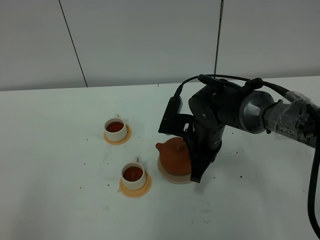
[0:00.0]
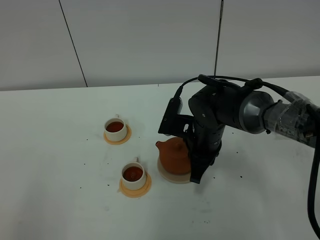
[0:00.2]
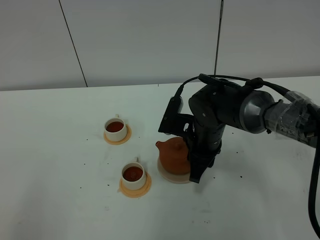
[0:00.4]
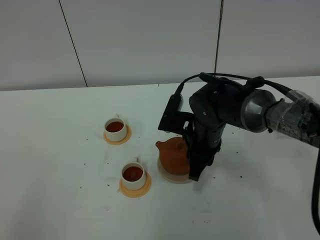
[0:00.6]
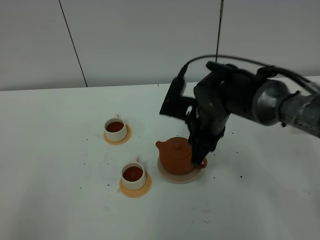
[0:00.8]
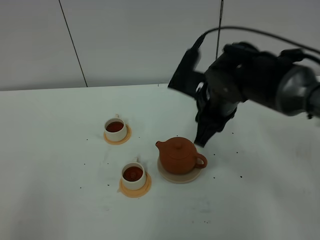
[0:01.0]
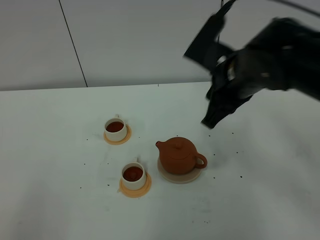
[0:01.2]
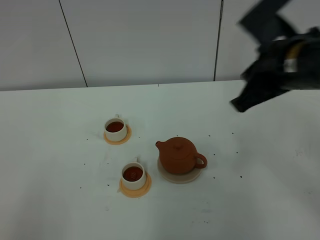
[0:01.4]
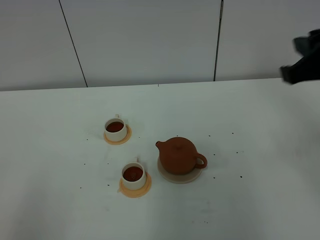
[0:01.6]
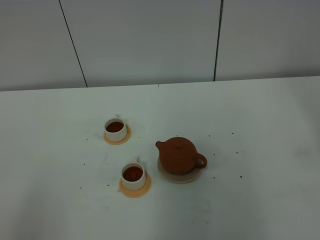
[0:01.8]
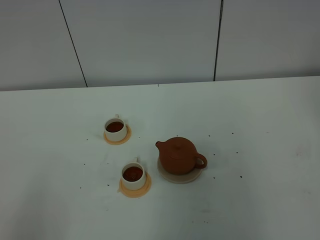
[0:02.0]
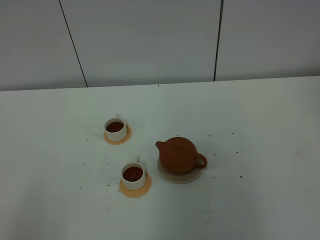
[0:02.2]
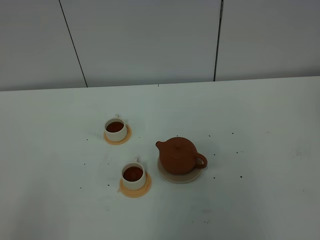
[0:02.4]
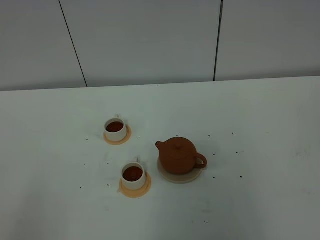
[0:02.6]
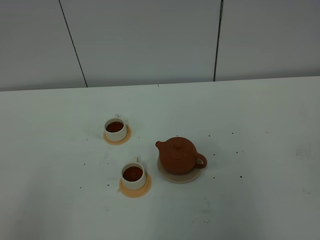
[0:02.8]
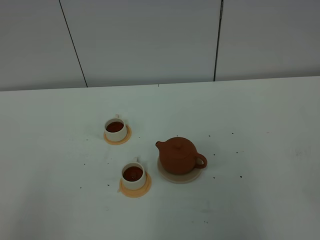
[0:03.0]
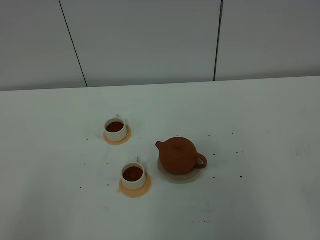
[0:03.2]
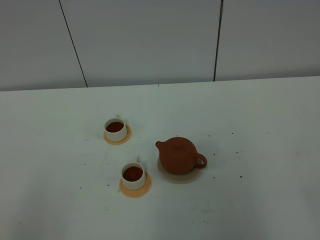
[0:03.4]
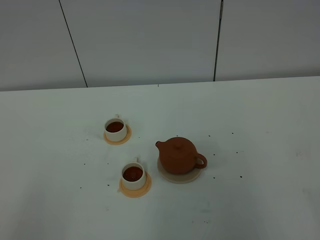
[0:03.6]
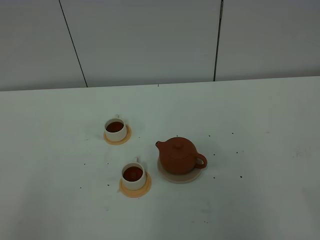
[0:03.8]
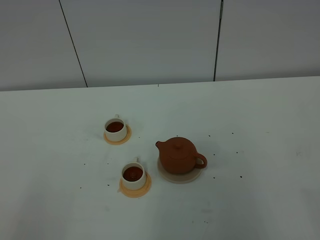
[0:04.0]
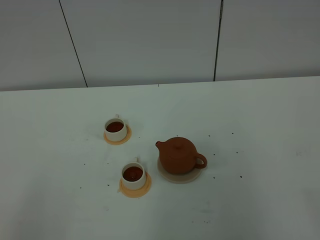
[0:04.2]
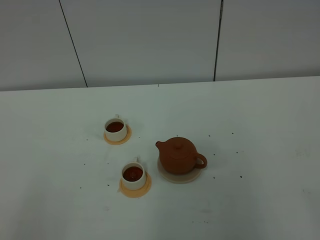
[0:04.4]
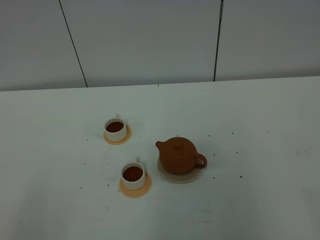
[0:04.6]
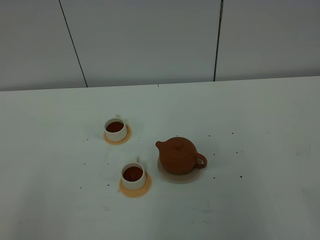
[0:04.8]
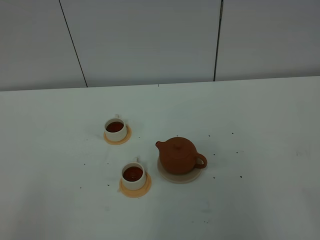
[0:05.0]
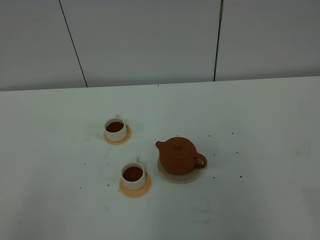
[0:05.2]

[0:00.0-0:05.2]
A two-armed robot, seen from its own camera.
Task of the whole recording: grasp the brown teapot and pour the tea into the two white teacups one by one, put the brown teapot back in its original place.
0:00.0 to 0:01.8: The right gripper heads upward, to the right and backward, covering roughly 40 cm, and opens, then closes again.

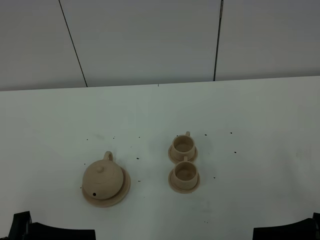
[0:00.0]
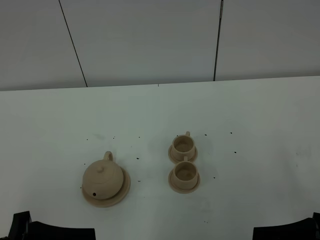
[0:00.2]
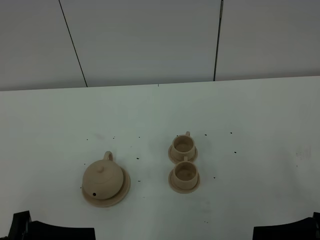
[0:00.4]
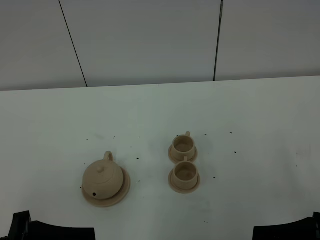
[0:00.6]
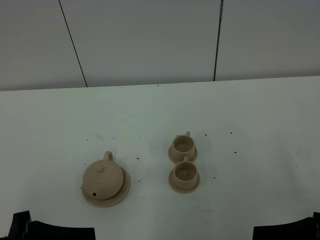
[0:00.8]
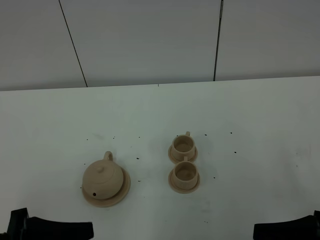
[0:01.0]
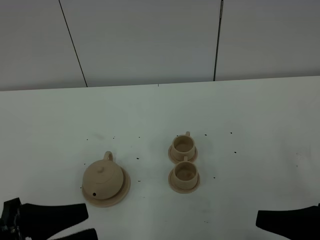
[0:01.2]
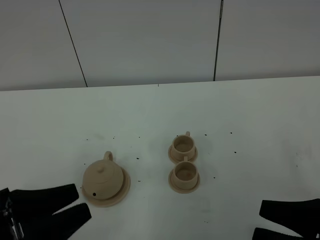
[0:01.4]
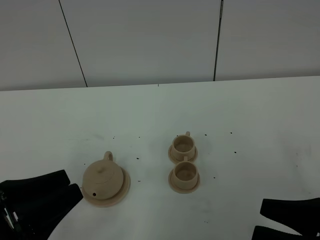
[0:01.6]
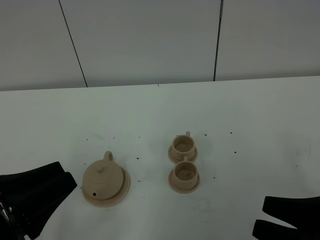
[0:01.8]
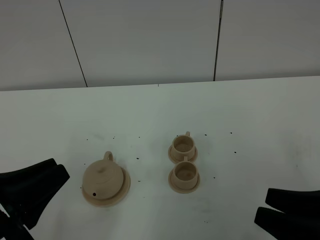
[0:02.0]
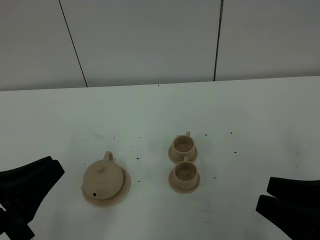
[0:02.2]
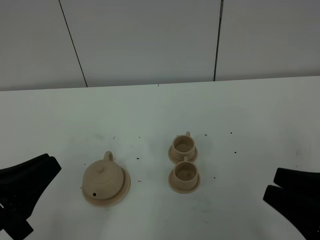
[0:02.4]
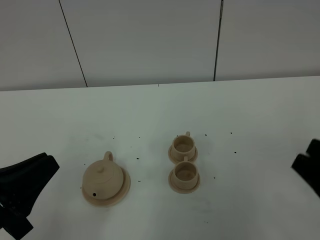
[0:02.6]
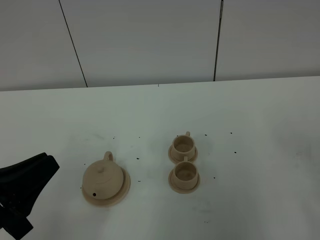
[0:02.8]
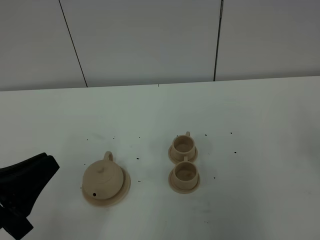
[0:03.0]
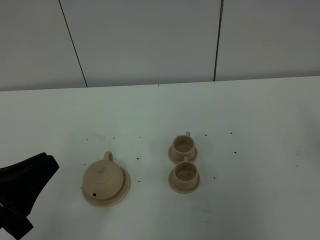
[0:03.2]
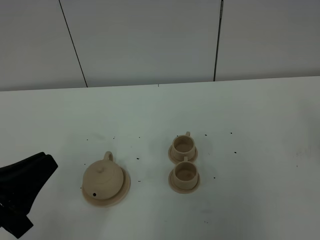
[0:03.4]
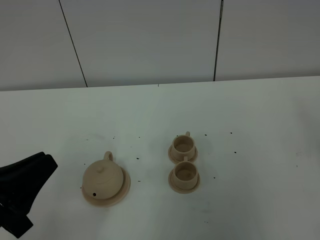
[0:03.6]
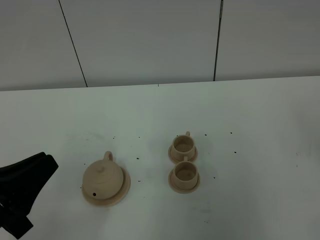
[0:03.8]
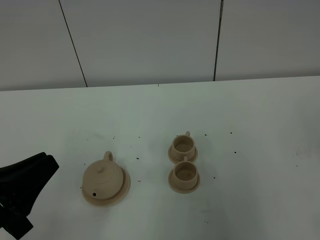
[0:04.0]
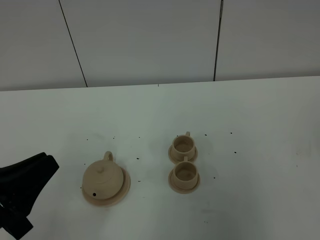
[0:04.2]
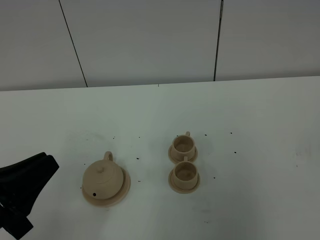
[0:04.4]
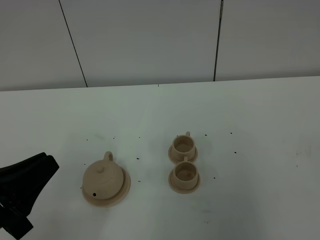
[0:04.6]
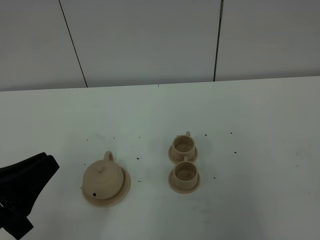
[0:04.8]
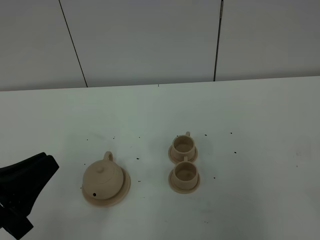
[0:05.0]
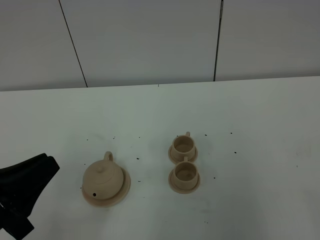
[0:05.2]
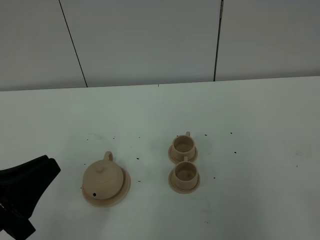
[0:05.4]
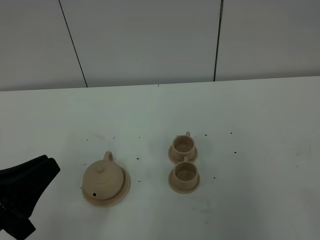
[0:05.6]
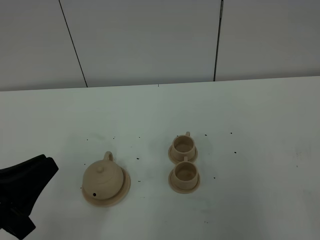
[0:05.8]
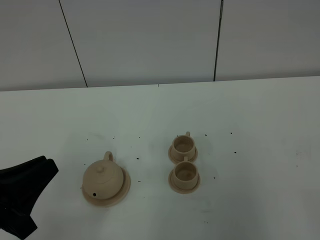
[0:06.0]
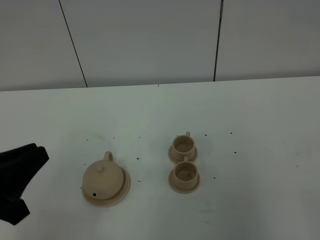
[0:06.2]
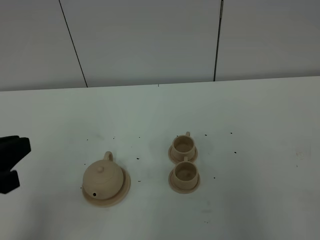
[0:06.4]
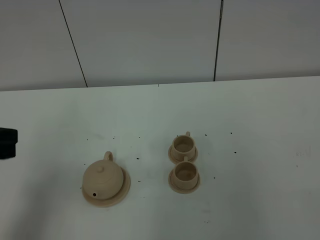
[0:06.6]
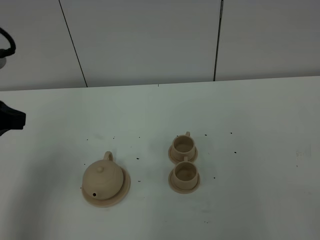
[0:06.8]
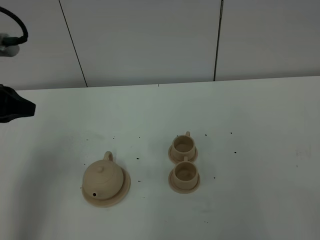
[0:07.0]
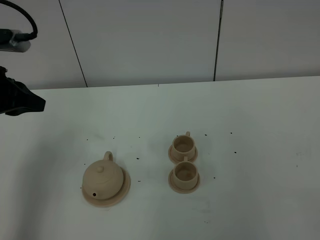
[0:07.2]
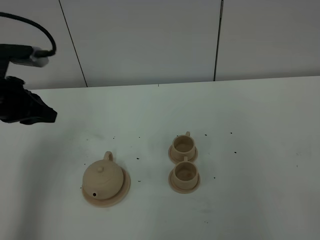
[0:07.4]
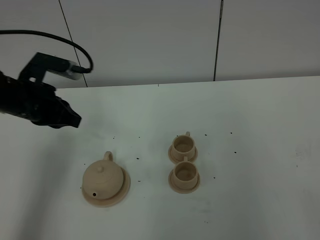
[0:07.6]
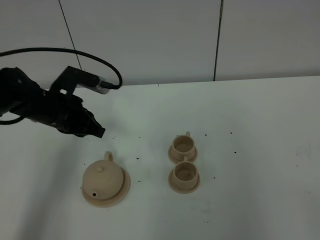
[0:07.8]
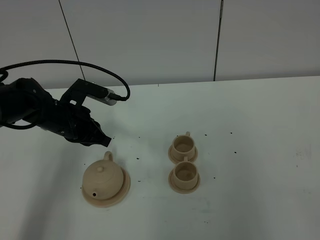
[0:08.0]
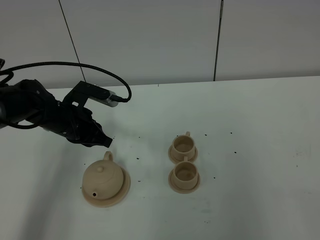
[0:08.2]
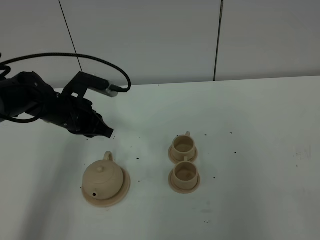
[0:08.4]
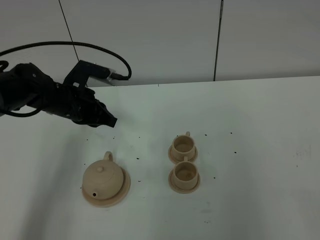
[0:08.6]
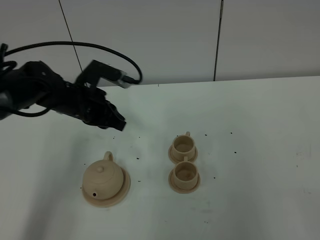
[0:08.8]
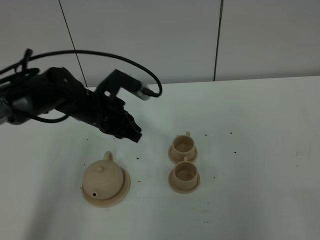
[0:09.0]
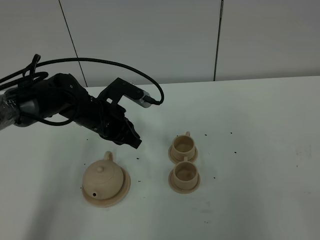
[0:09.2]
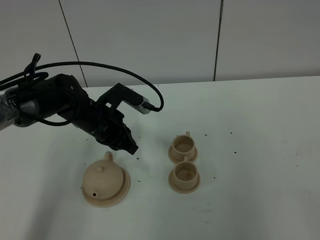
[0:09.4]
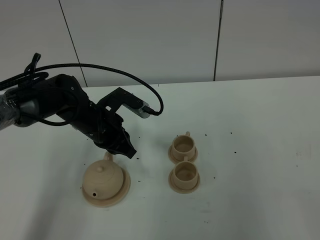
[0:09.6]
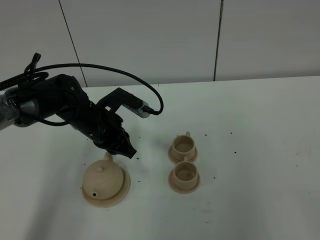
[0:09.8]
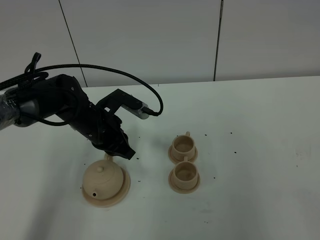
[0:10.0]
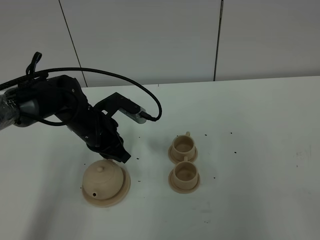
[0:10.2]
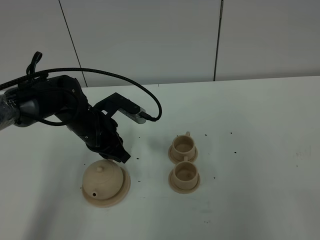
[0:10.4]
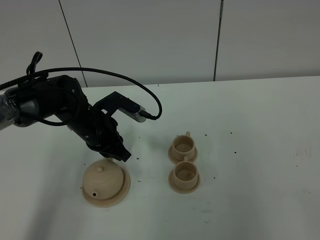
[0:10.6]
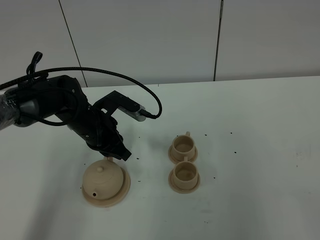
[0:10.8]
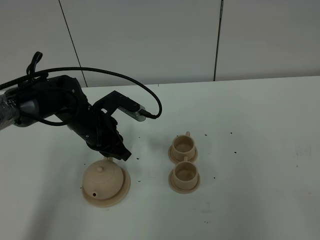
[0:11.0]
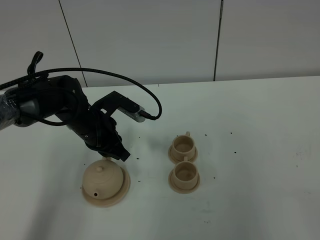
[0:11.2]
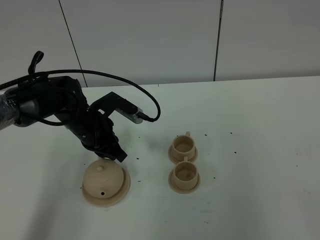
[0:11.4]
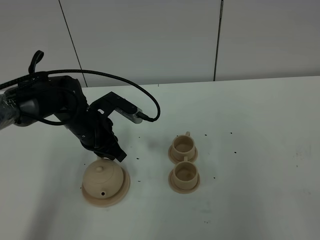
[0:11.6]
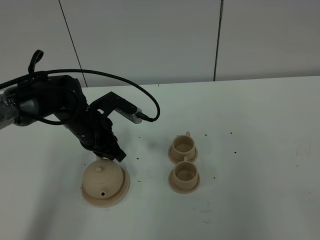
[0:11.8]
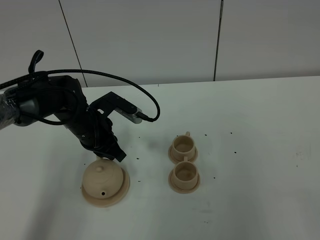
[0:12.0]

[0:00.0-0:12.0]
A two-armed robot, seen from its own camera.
Task of the whole recording: grasp the brown teapot and pour the tea into the two brown teacups one by one, put the brown teapot back in its original place.
0:01.6 to 0:03.0: The left gripper closes its fingers, while the right gripper is displaced upward and to the right by about 10 cm, and closes up.
0:06.0 to 0:07.6: The left gripper is displaced forward by roughly 25 cm.
0:07.6 to 0:09.0: The left gripper shifts approximately 10 cm to the right and downward.
0:09.0 to 0:10.4: The grippers move only a little.
0:10.4 to 0:12.0: The two grippers keep their place.

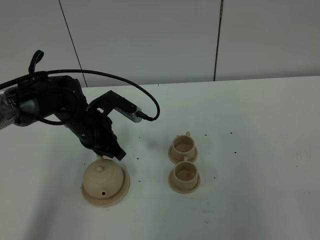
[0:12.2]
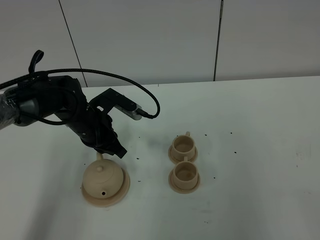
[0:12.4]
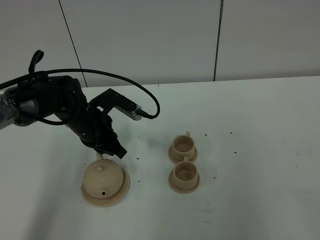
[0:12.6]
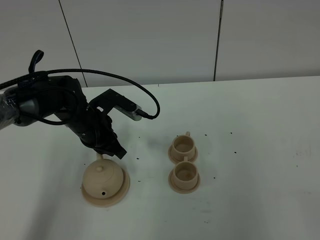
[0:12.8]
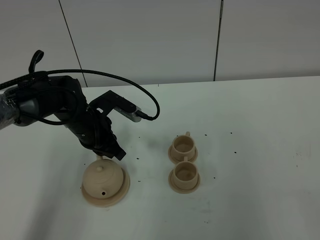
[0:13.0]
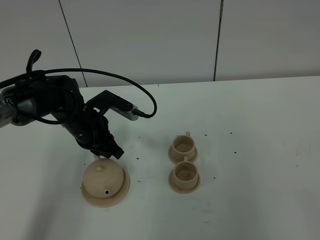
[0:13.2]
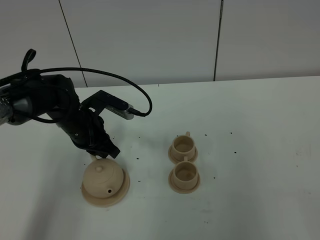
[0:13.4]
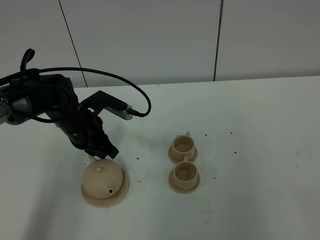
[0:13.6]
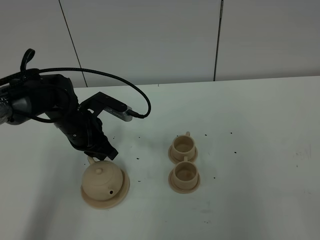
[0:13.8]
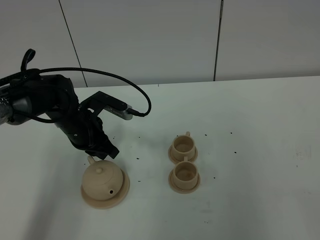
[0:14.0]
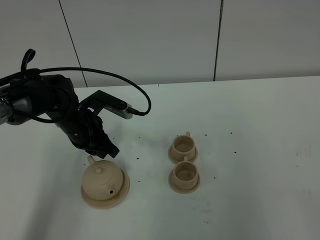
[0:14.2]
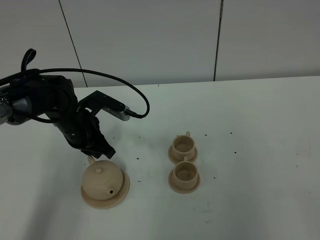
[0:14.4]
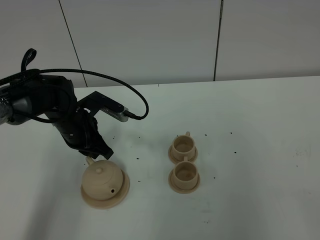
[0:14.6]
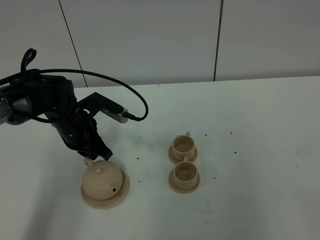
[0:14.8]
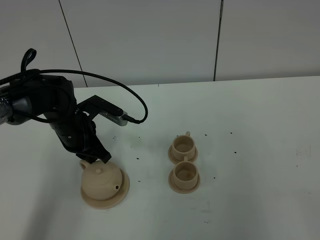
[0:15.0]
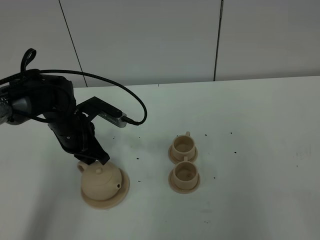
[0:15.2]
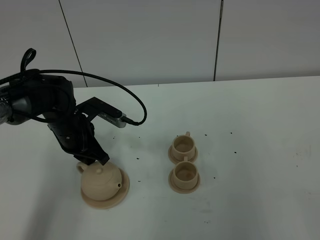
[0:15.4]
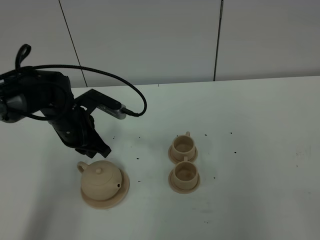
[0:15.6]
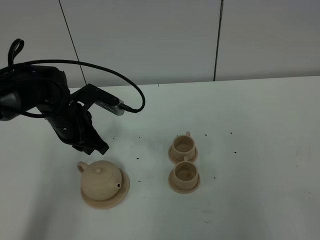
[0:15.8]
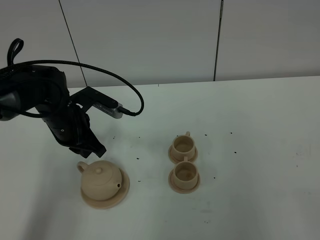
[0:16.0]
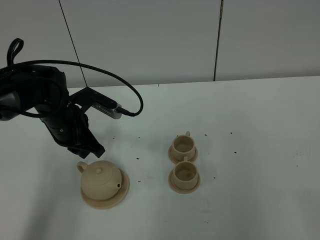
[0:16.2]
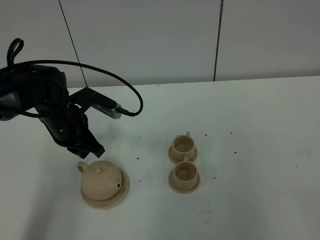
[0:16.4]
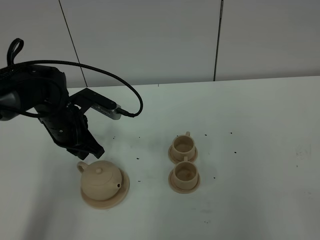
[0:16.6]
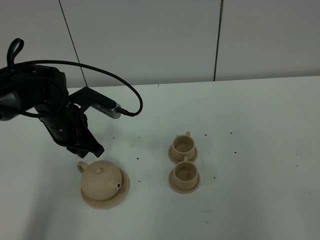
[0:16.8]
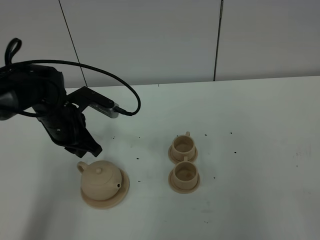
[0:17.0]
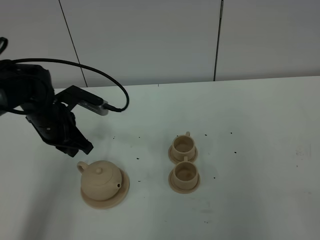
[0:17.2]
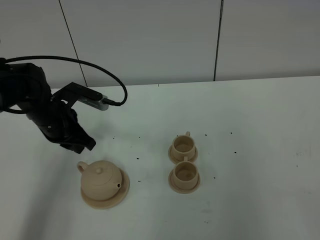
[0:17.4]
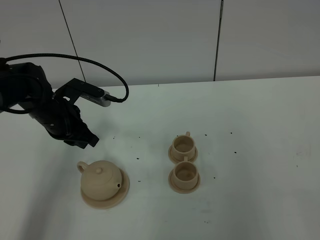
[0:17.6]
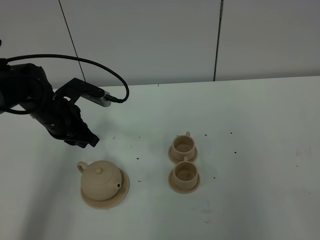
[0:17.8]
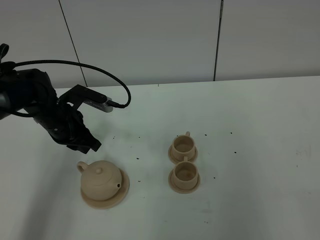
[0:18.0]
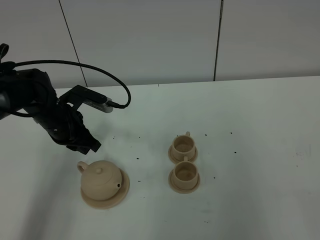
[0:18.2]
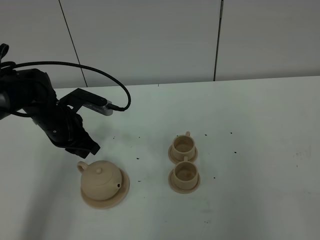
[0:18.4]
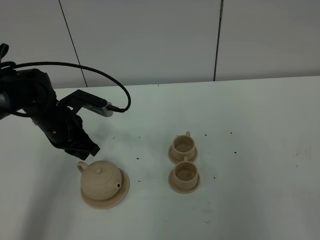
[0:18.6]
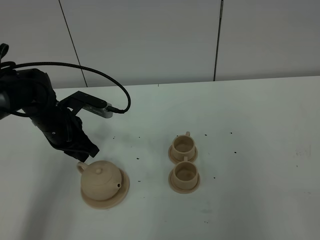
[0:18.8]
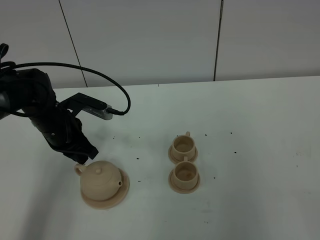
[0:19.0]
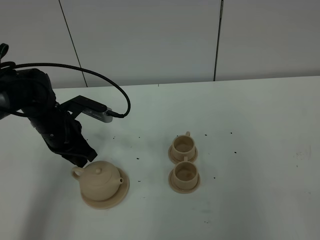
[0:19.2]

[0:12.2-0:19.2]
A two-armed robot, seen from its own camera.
Task of the whole recording: grasp the brown teapot and pour the tea into the two brown teacups one by one, put the brown teapot back in its original place.
0:12.2 to 0:16.4: The grippers stay close to where they were, moving slightly.
0:16.4 to 0:19.2: The grippers move only a little.
